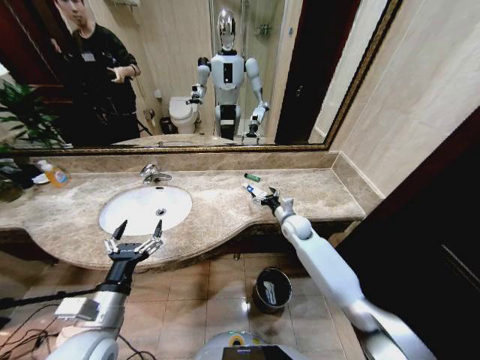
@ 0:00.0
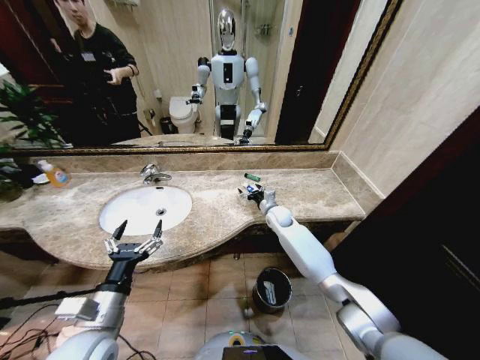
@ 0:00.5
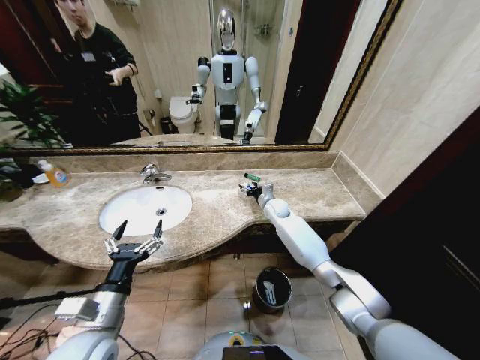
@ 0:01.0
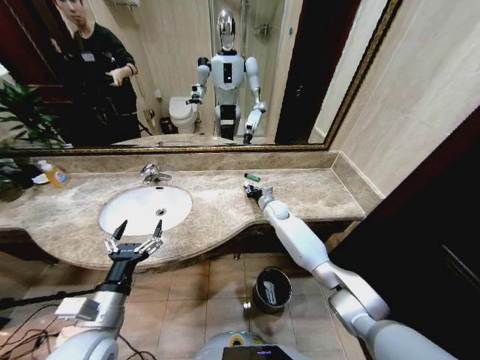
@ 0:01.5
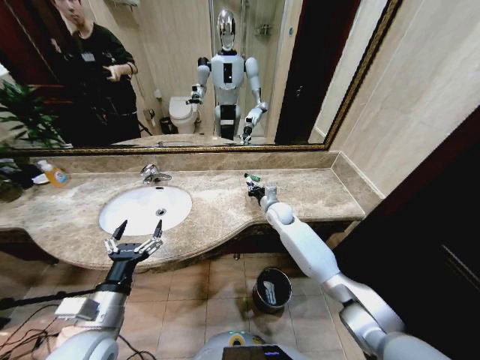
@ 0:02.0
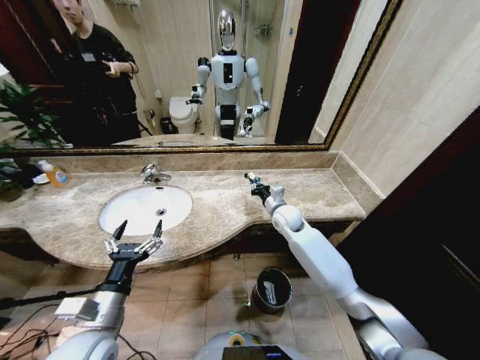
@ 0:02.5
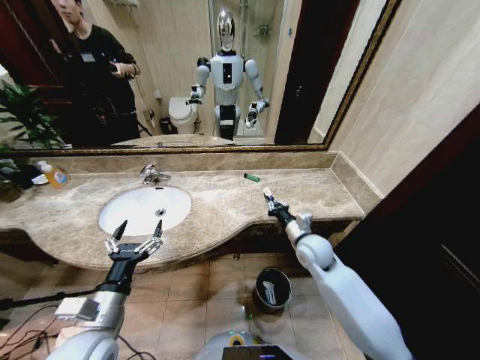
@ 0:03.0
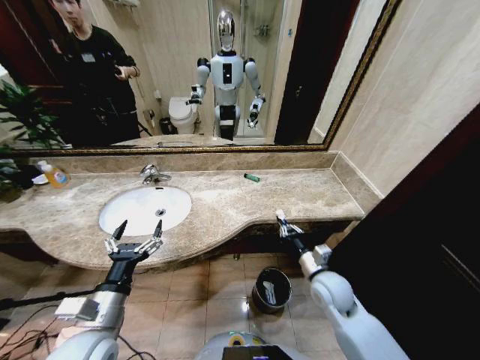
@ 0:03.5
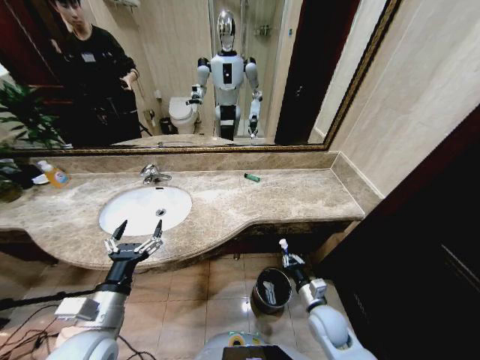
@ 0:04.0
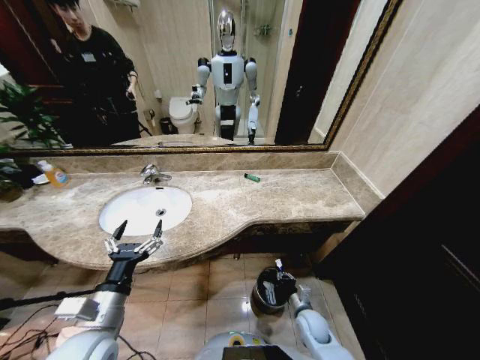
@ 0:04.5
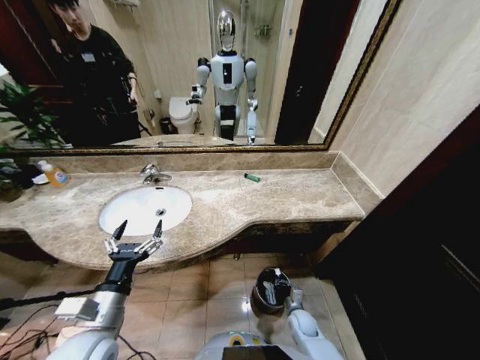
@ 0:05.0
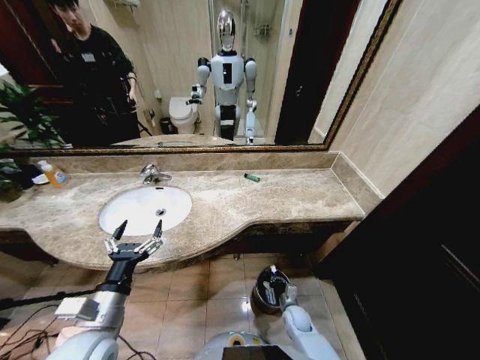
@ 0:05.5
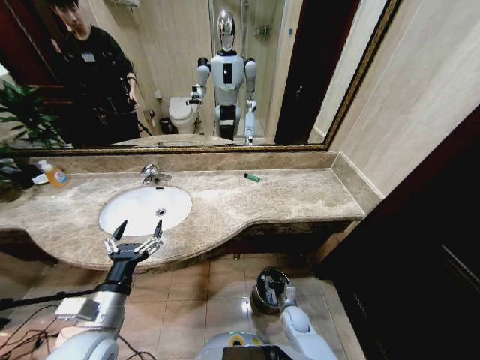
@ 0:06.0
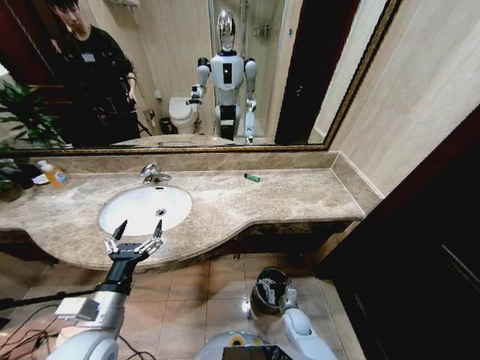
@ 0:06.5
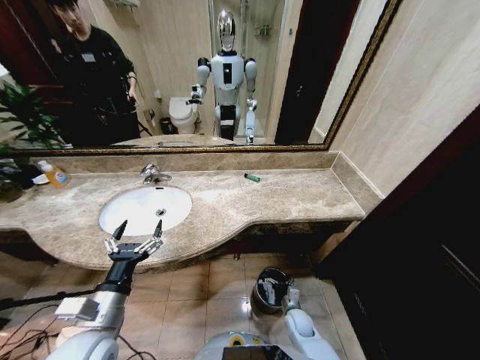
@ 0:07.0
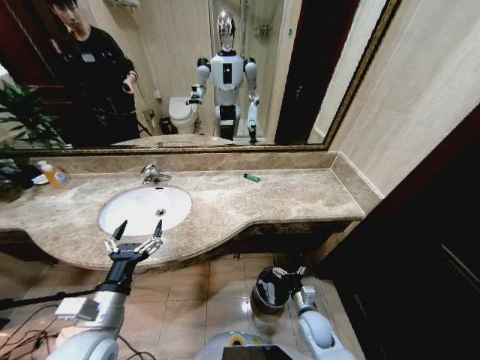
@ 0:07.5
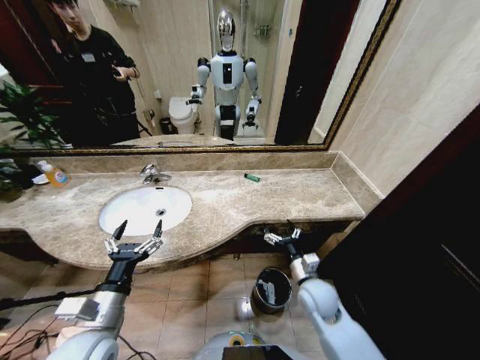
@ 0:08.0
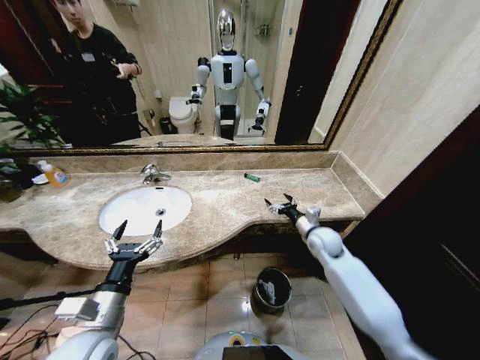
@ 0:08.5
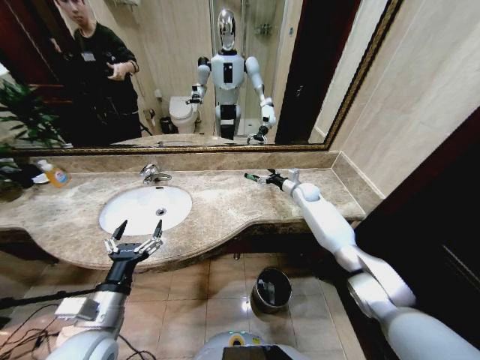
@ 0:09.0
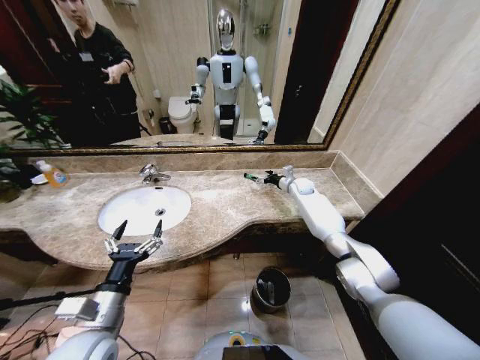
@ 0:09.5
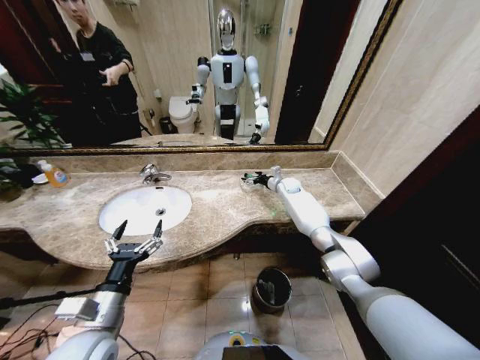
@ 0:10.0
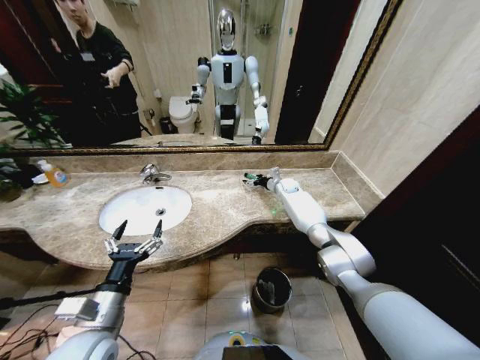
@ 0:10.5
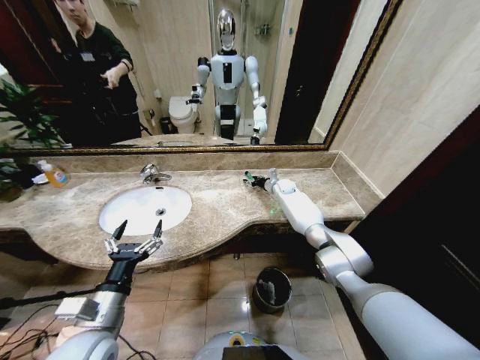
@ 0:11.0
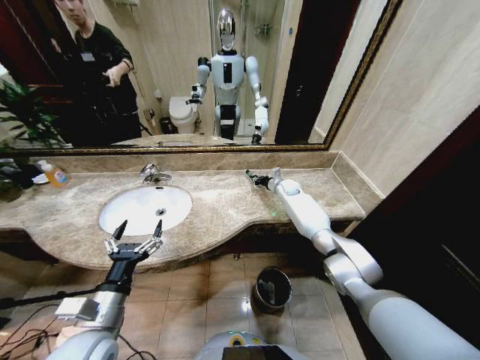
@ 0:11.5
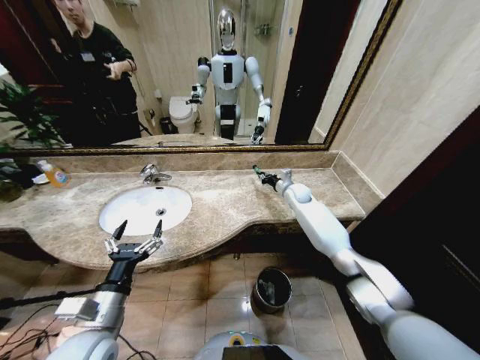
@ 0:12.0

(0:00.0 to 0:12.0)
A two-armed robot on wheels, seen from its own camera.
Task of the whole recording: Pick up the trash from the sink and place it in the trash bin.
0:00.0 - 0:02.0: The right gripper heads forward and to the left, covering approximately 10 cm, and closes its fingers.
0:02.0 - 0:04.0: The right gripper travels backward by about 30 cm.
0:04.0 - 0:06.0: The right gripper shifts approximately 15 cm downward, and opens.
0:06.0 - 0:08.0: The right gripper travels upward by about 25 cm, and opens.
0:08.0 - 0:10.0: The right gripper is displaced forward by about 40 cm.
0:10.0 - 0:12.0: The right gripper goes approximately 10 cm backward, and closes up.

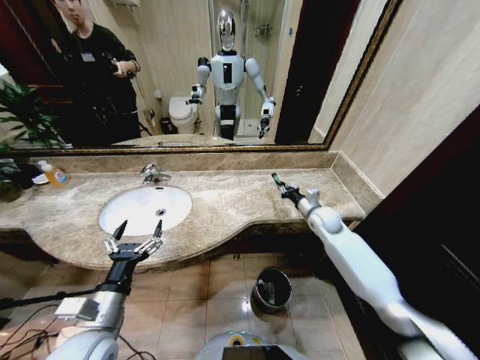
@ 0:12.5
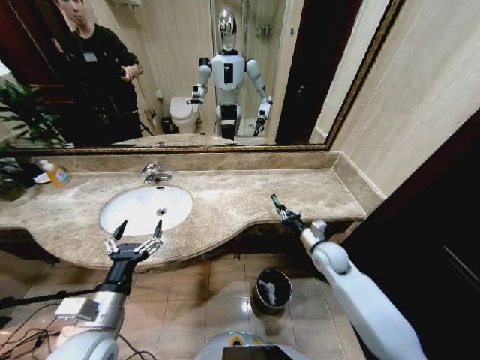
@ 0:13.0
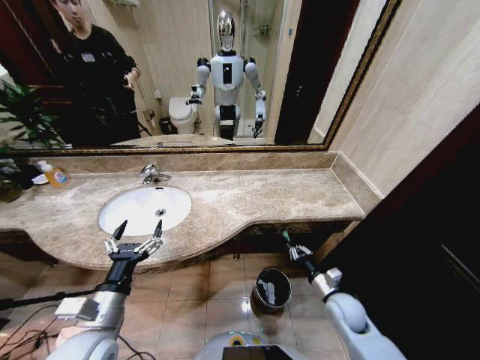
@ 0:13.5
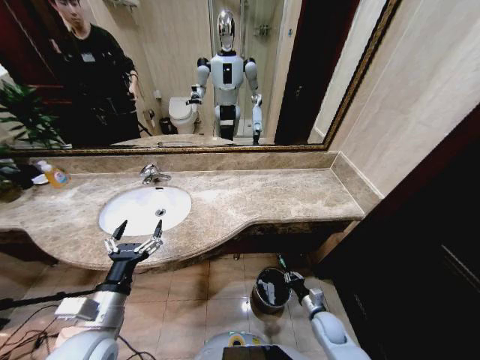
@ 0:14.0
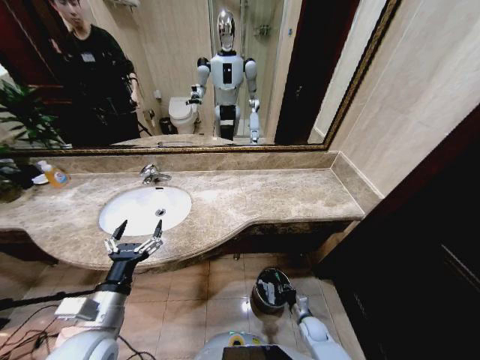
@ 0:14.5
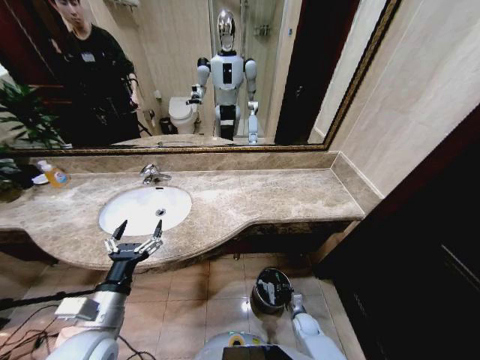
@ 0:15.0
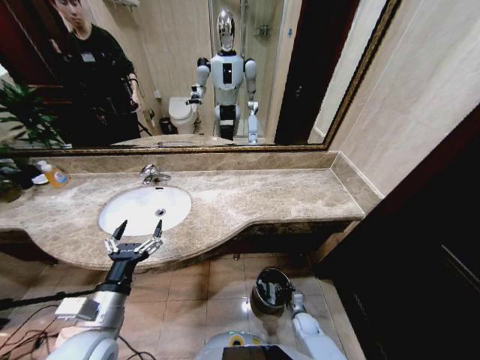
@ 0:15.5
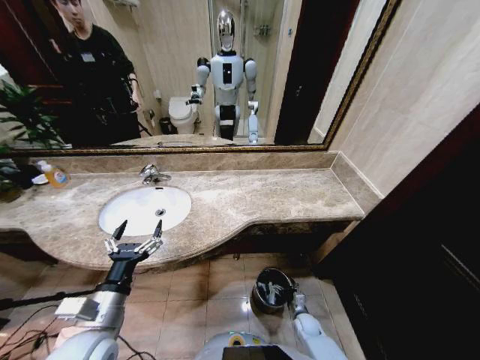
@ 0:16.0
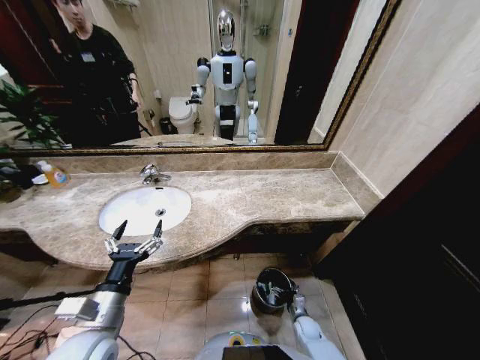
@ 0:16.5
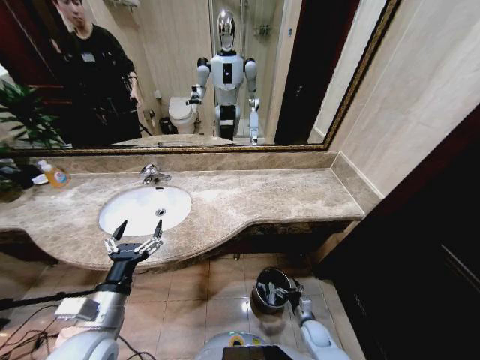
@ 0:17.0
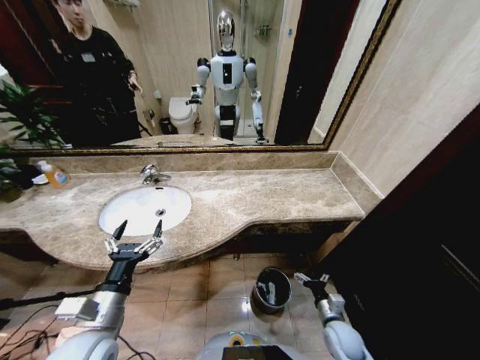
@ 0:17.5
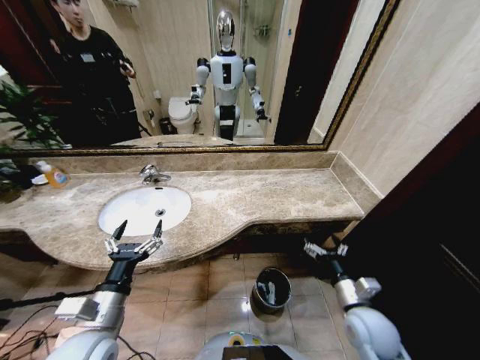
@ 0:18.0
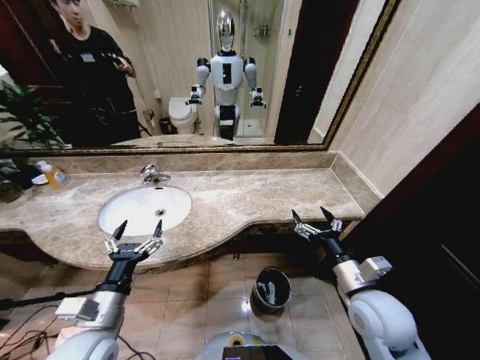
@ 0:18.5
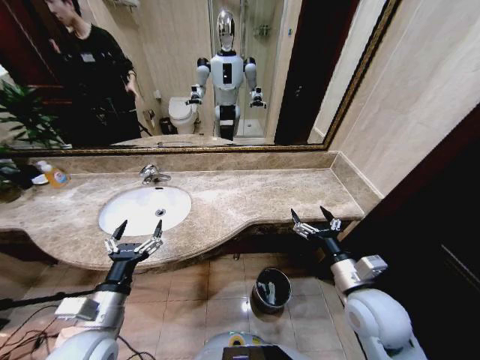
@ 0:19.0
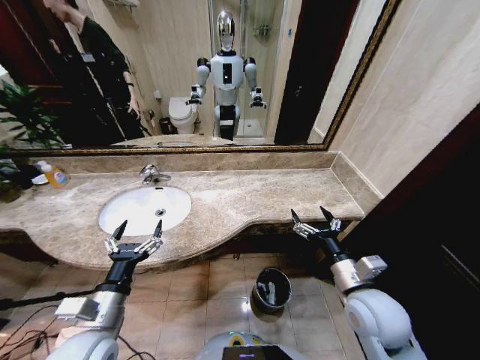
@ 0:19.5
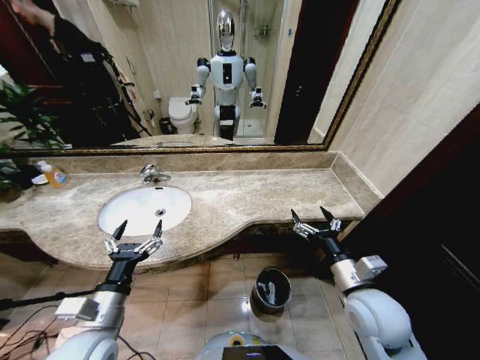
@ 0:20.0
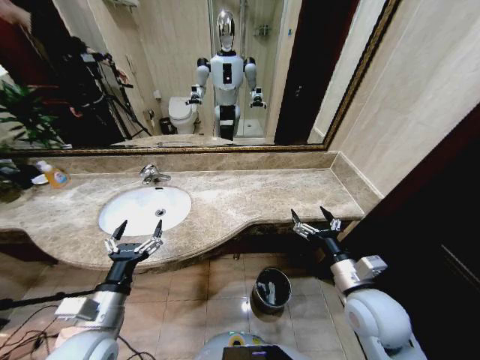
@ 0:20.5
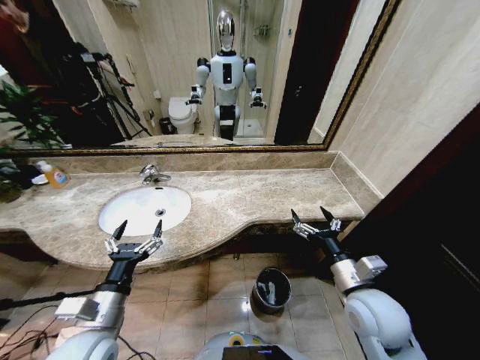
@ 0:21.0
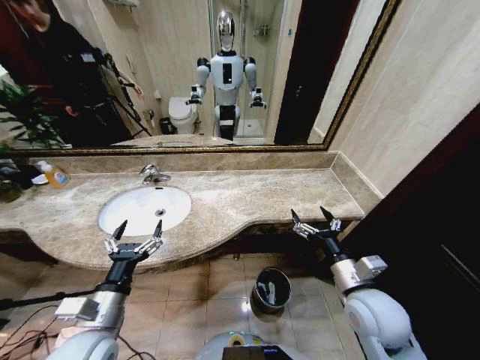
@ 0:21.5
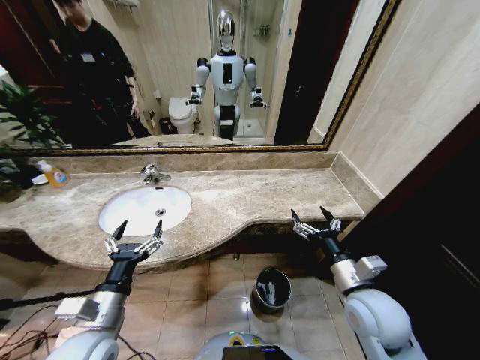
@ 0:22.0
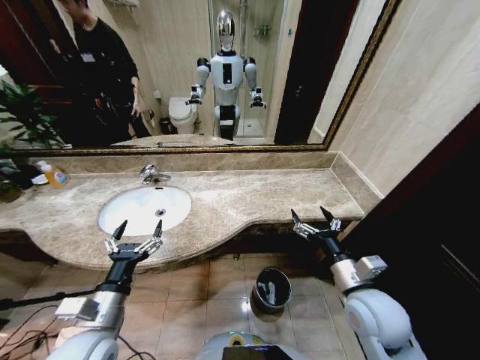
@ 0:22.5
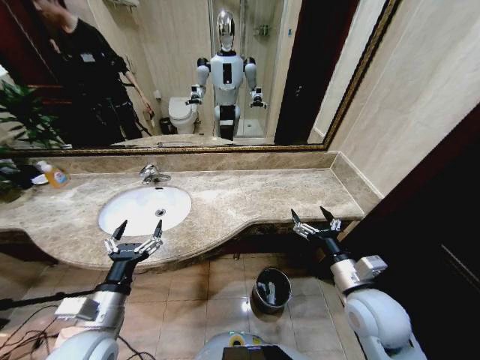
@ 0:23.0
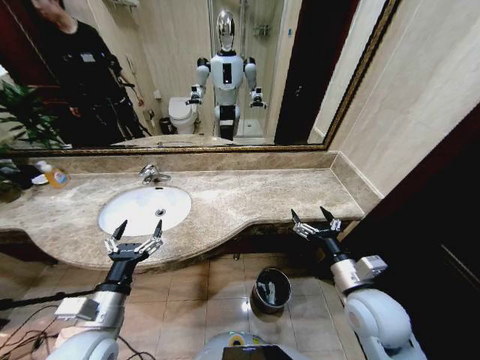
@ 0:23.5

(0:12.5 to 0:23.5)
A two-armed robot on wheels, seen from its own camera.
Task of the whole recording: Pick up the trash from the sink and place it in the trash bin.
0:12.5 - 0:14.5: The right gripper is displaced downward and backward by approximately 40 cm.
0:14.5 - 0:16.0: The right gripper opens up.
0:16.0 - 0:18.0: The right gripper goes about 30 cm upward.
0:18.0 - 0:20.0: The right gripper shifts some 10 cm upward.
0:20.0 - 0:23.5: Both grippers stay about where they are.
